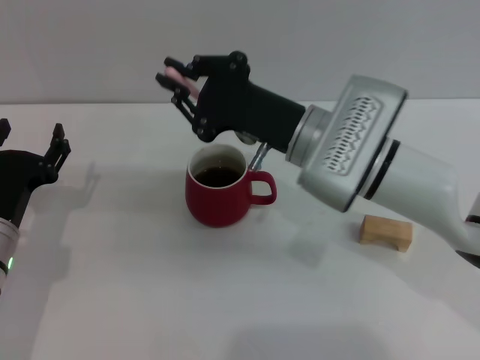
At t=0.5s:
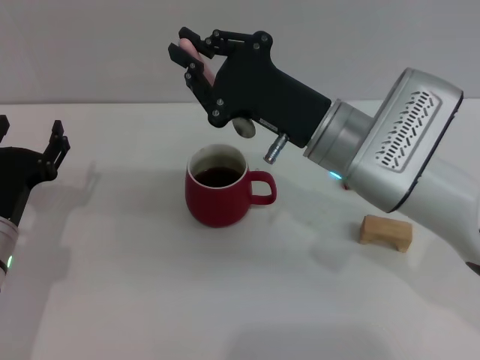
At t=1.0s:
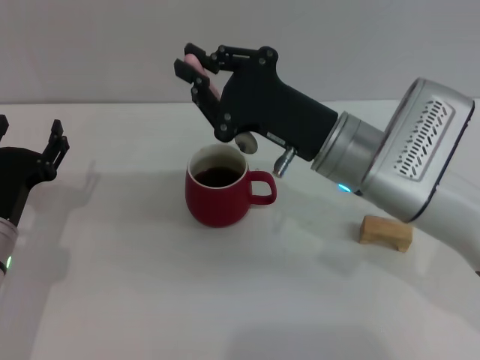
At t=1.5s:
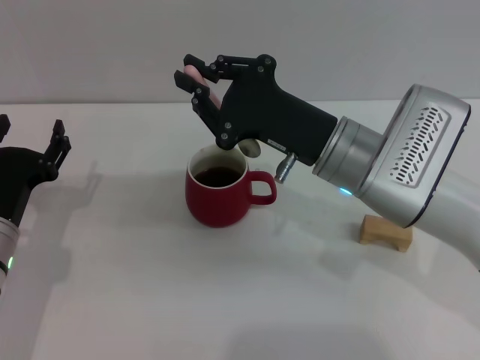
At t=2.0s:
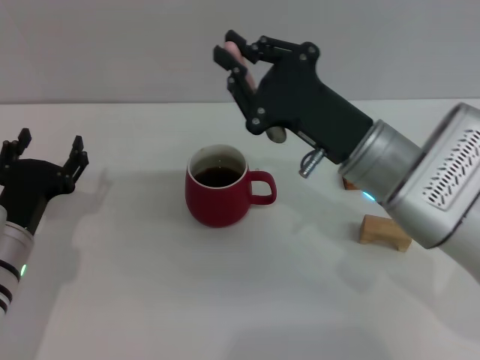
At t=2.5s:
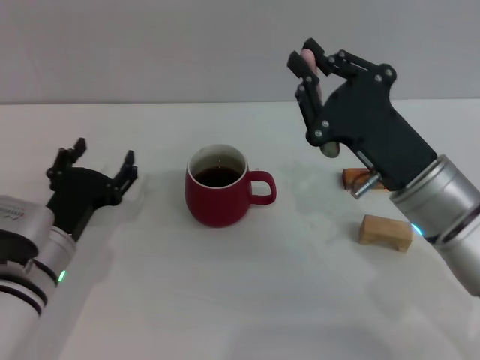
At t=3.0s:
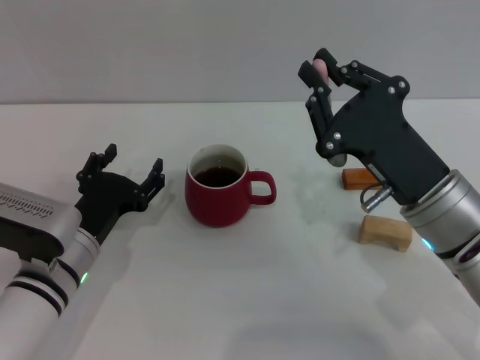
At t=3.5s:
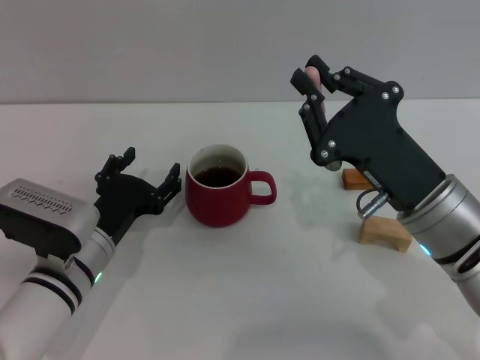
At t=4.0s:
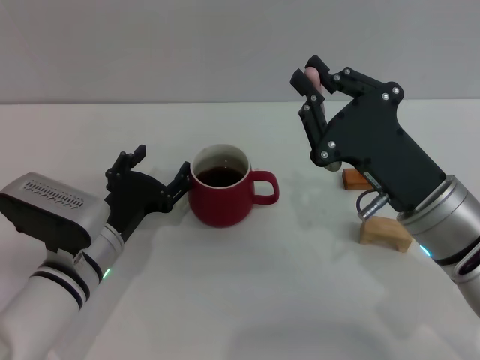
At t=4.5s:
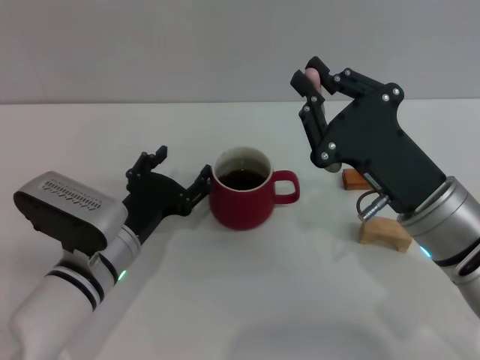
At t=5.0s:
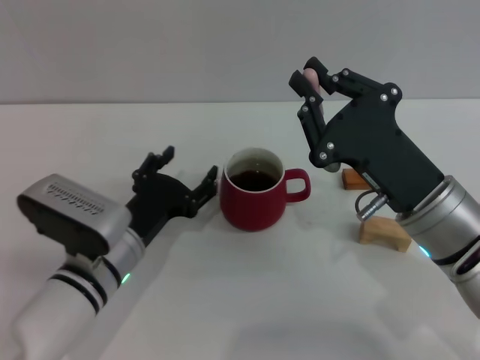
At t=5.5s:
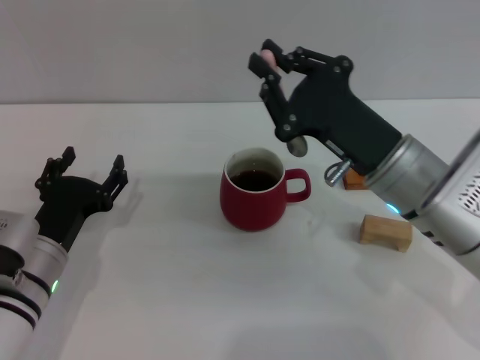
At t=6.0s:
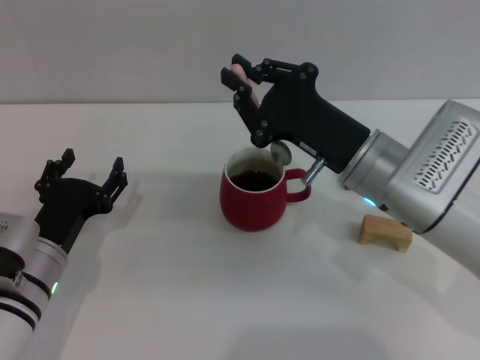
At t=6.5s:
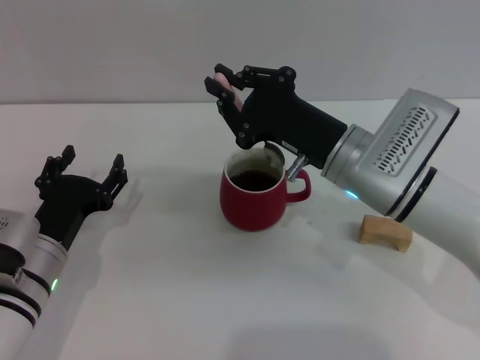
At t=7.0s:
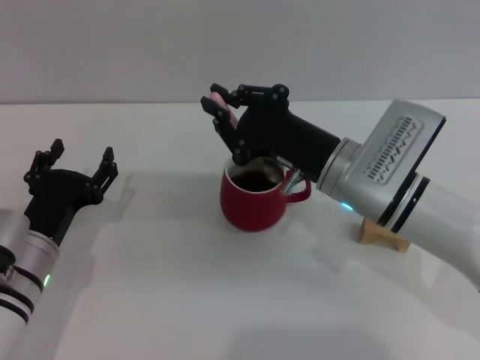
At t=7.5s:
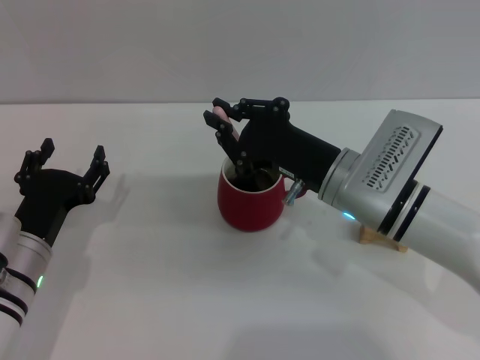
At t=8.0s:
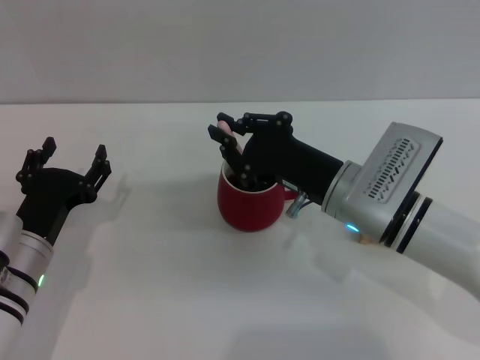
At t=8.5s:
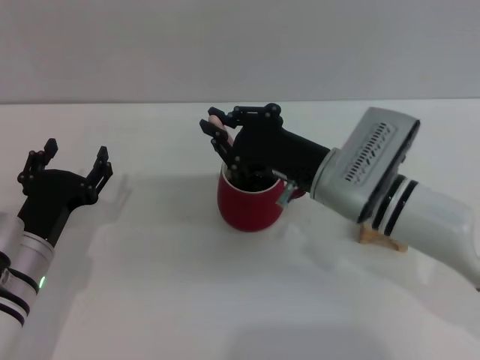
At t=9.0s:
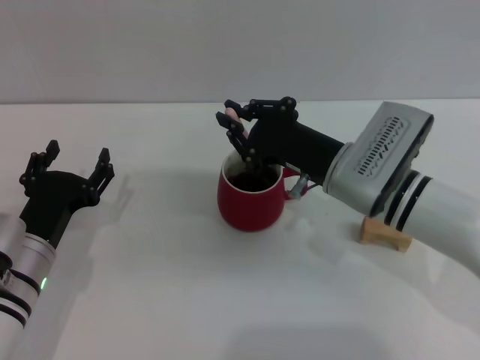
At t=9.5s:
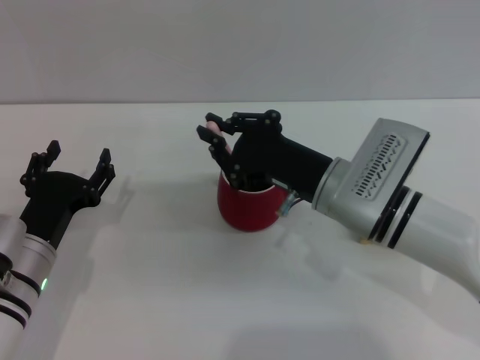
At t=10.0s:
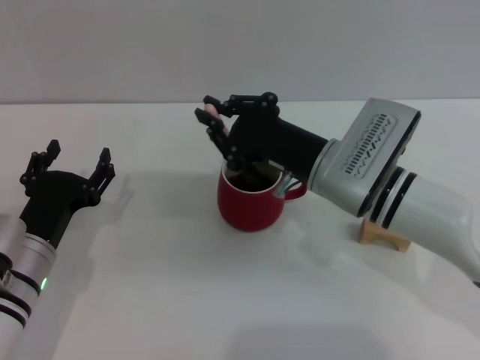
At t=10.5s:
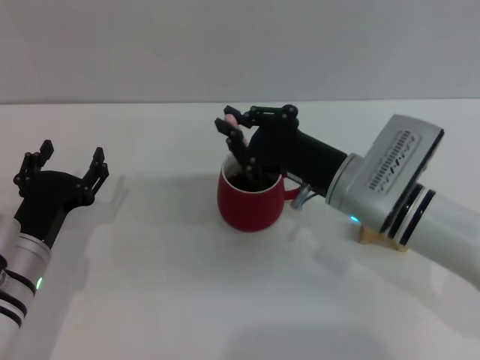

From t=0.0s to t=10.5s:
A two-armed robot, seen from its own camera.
Task of the whole recording: Move the red cup to the center, lift the pink spoon, stir it three times in the cup, and put the spoon into the cup.
From t=0.0s to t=2.0s: The right gripper moves roughly 5 cm.
From t=2.0s to t=4.0s: The left gripper moves to the right, about 10 cm; the right gripper changes place by approximately 5 cm.
From t=4.0s to t=6.5s: The right gripper shifts some 10 cm forward and to the left.
From t=6.5s to t=10.5s: The grippers stay close to where they were, moving slightly.

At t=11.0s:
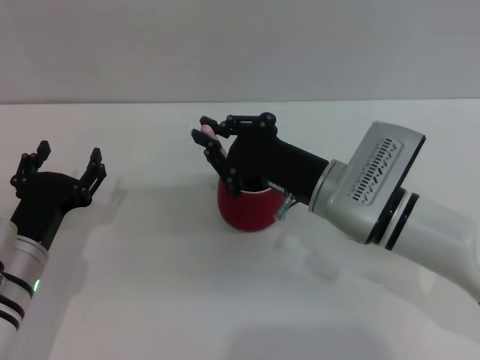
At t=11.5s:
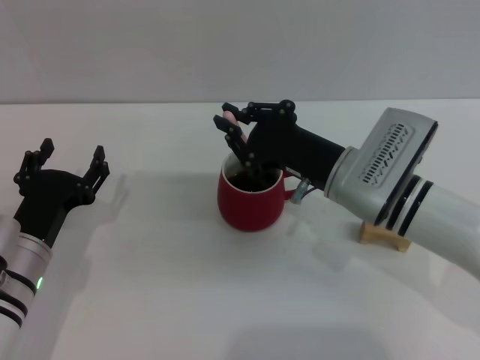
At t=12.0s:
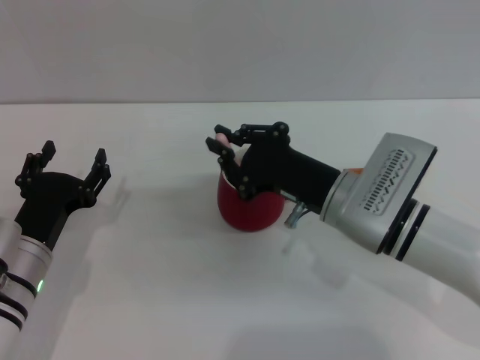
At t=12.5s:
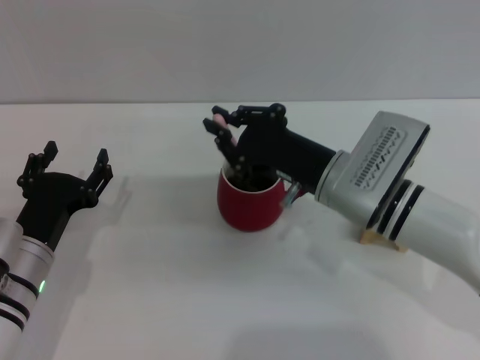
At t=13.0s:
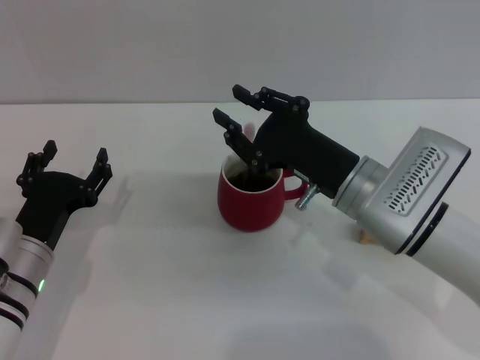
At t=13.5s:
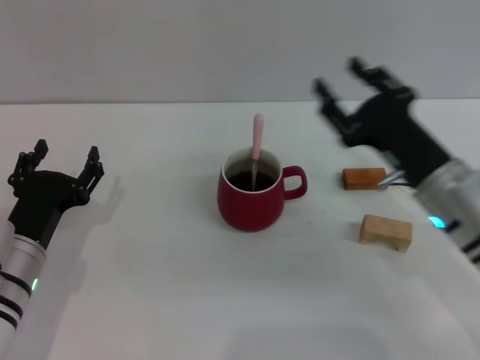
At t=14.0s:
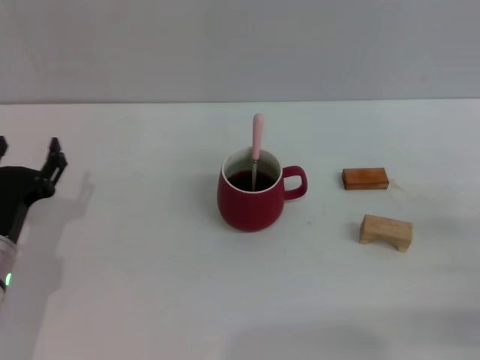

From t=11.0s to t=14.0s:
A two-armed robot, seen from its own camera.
Task of the whole recording: Move the red cup to the center, lift the pink spoon, stir it three times in the cup, and put the spoon into the cup.
Step, from t=11.0s to t=13.0s: Stir the coffee in the cup with the right gripper.
From t=11.0s to t=12.5s: The grippers make only small movements.
From t=12.5s to t=14.0s: The right gripper travels to the right and backward by roughly 25 cm, and opens up.
